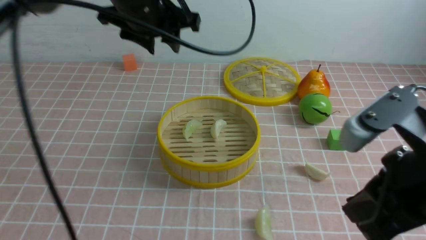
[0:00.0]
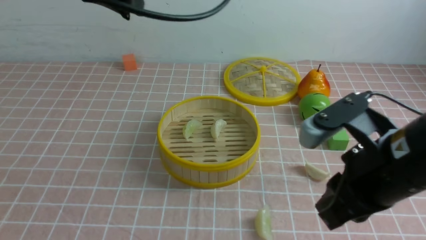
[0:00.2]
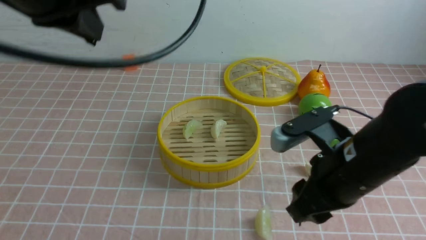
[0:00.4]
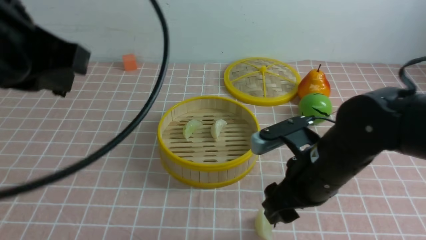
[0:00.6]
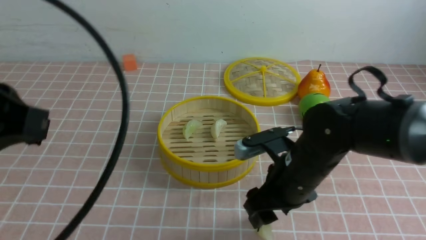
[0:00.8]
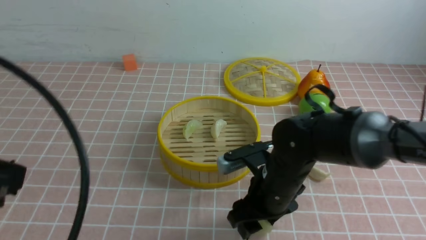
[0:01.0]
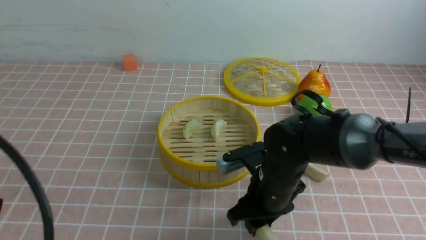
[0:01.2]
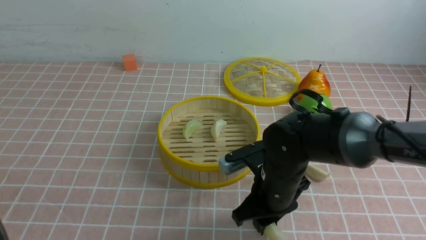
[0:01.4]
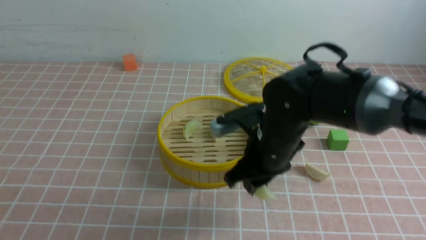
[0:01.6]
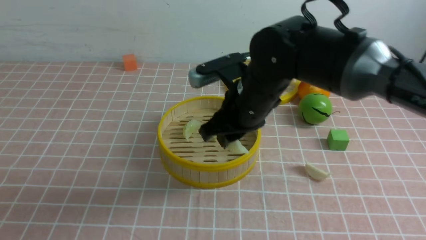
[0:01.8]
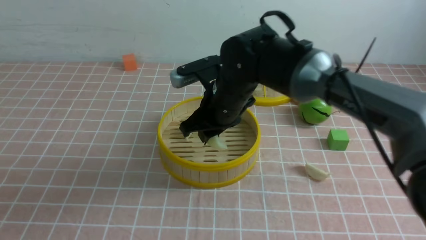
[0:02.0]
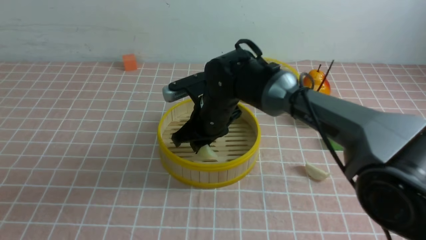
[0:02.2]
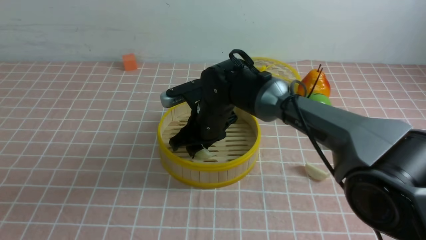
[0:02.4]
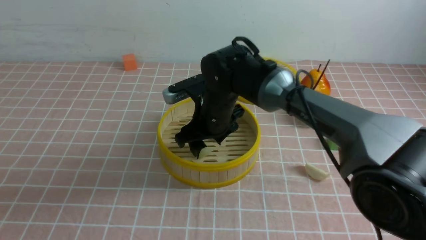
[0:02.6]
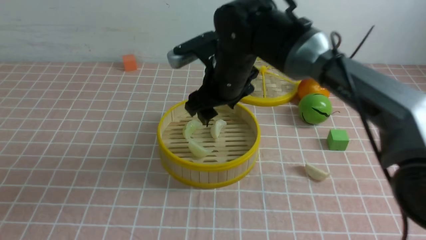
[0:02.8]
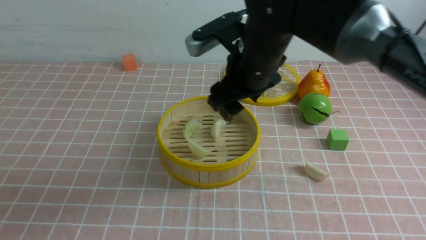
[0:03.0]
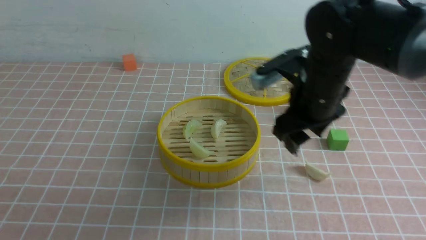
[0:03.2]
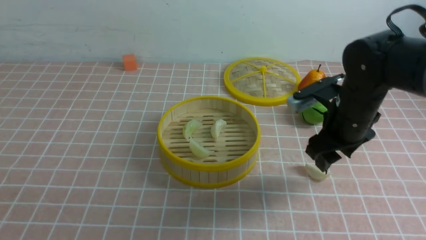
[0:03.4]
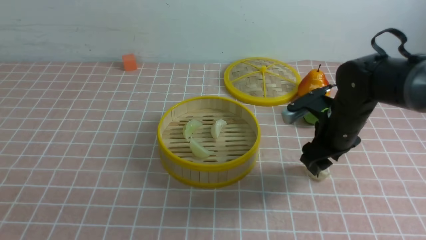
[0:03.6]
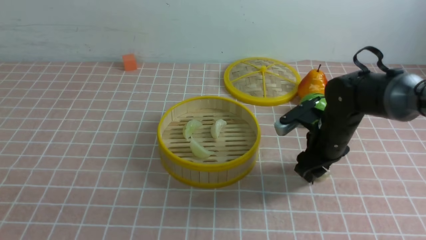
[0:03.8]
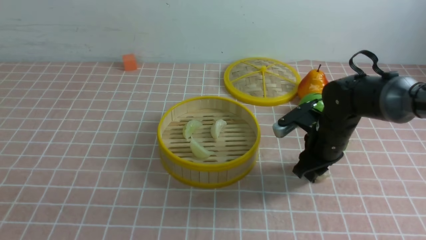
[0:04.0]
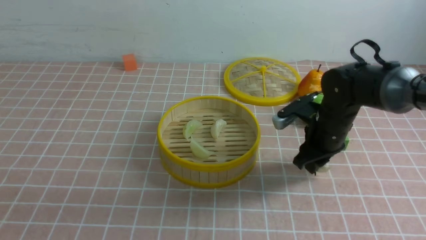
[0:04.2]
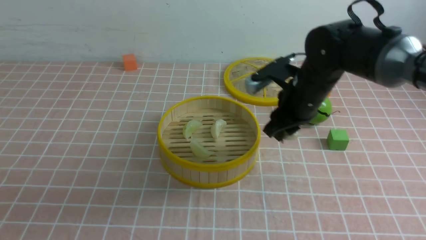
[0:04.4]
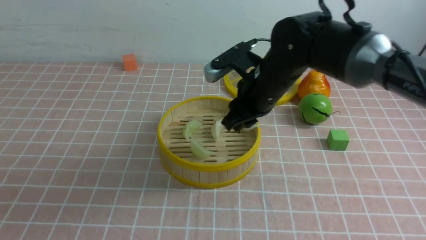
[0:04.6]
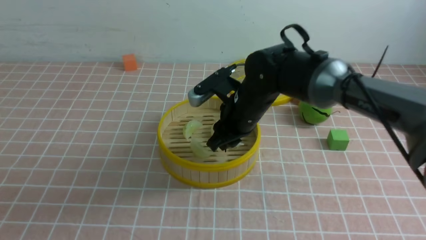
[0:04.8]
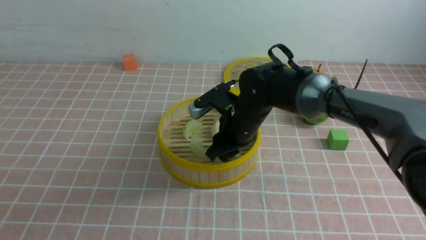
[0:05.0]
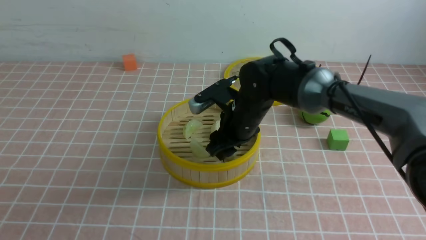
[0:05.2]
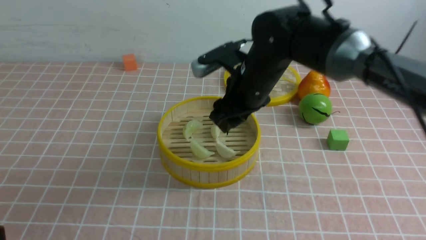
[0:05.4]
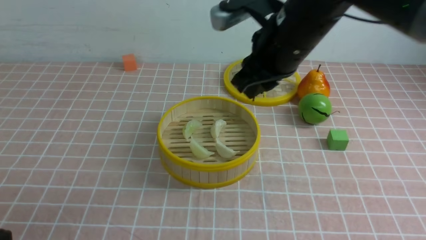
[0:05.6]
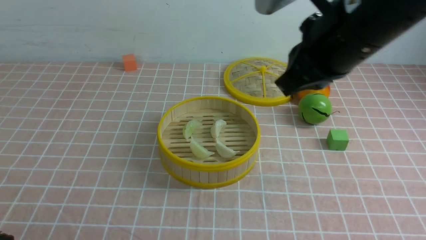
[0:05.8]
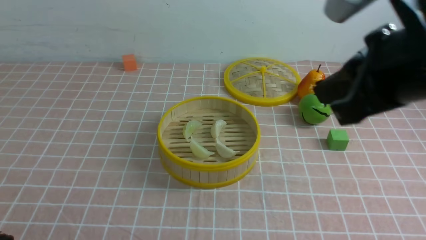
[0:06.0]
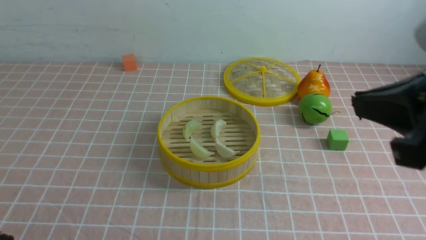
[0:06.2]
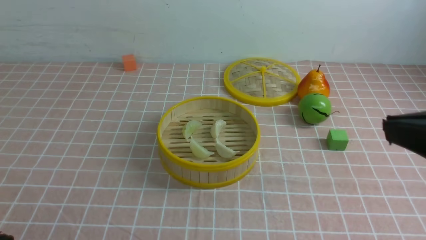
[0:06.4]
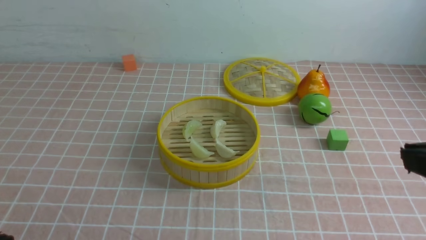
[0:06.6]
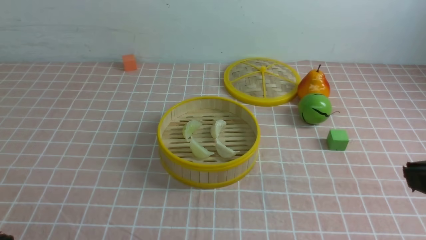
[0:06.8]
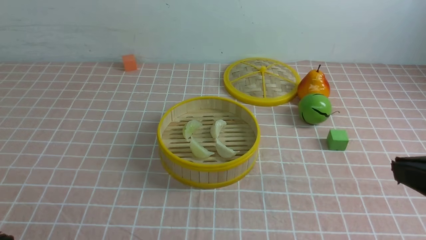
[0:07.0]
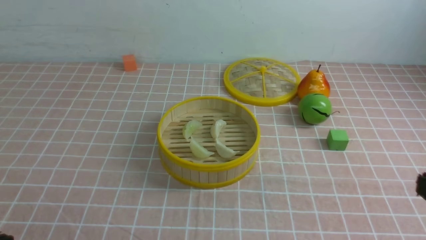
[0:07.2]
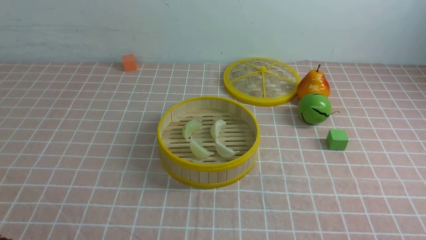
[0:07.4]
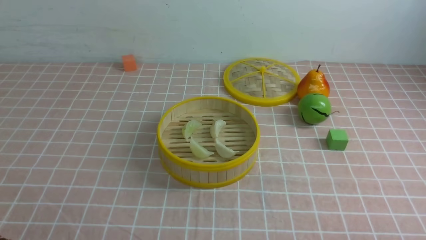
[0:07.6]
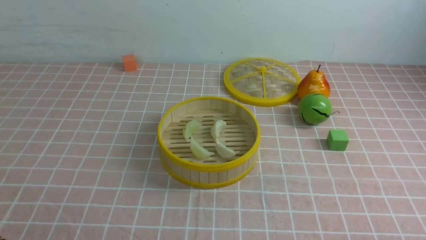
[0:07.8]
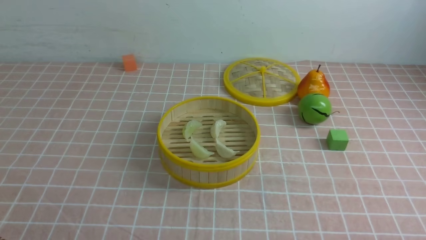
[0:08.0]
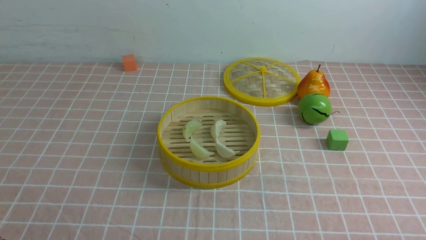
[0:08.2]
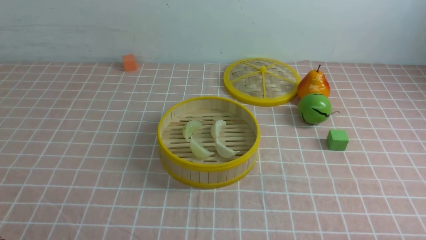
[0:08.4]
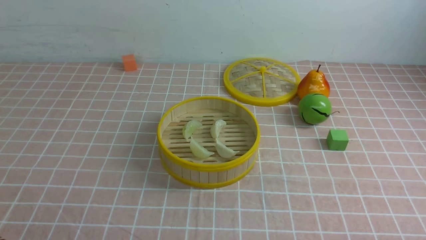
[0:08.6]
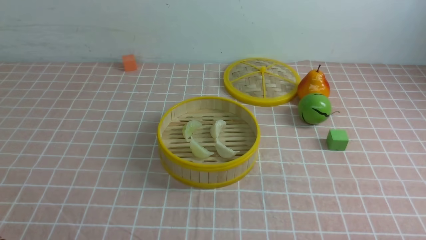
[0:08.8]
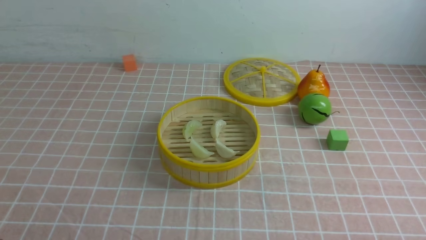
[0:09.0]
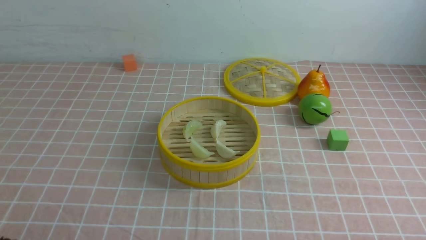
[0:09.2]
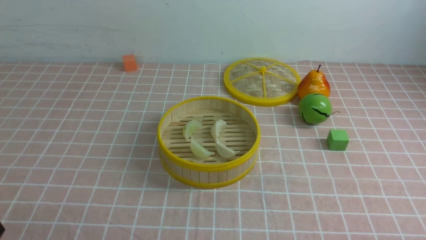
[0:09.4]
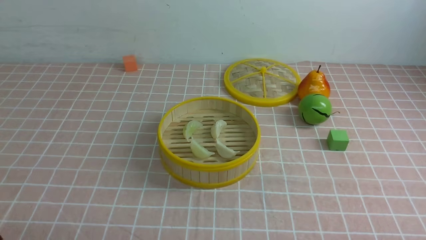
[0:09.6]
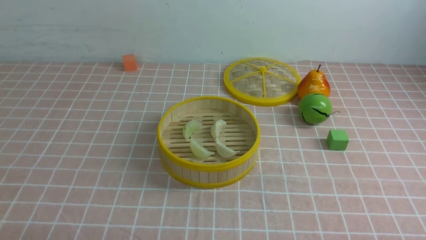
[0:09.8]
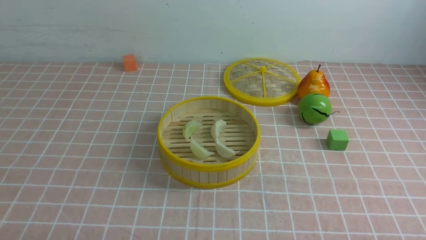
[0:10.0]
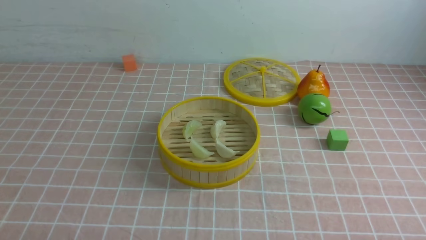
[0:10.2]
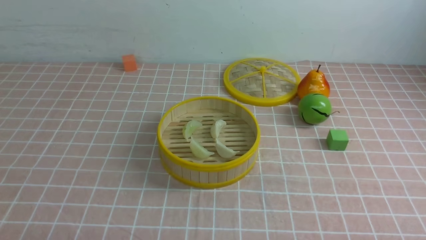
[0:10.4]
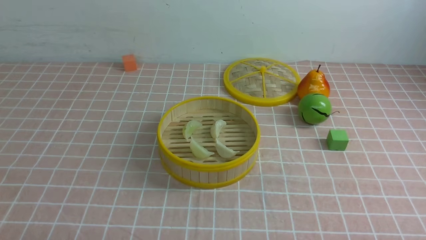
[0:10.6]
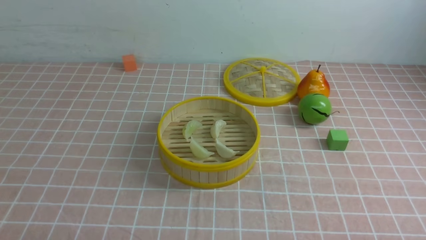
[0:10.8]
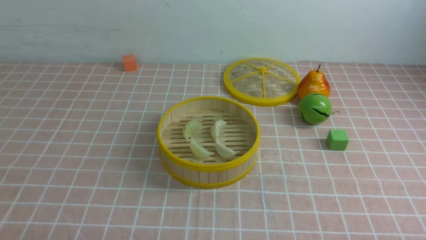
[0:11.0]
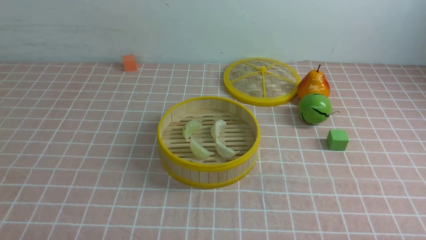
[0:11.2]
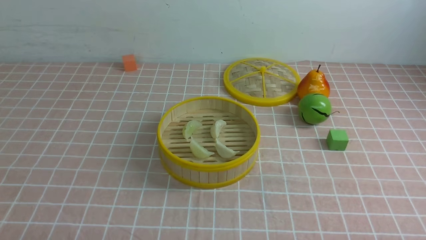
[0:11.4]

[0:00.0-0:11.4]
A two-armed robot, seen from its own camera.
Task of the whole recording: put the dumplings into the steamer on the table with the pink tablecloth.
Step, 0.0 to 1.4 s: use the right arm to grab a dumpling.
Step, 1.6 to 2.4 s: use the right arm to put the dumpling into the steamer.
Step, 2.6 to 4.0 s: use the right arm to grab a dumpling.
Step, 4.4 to 5.2 s: use the right arm to put the dumpling into the steamer.
0.0 to 1.4 s: The right gripper goes roughly 20 cm downward, forward and to the left, and opens, then closes once more. The left gripper goes roughly 35 cm backward and to the left, and closes its fingers.
1.4 to 2.8 s: The right gripper heads upward and forward, covering about 15 cm, and opens its fingers.
2.8 to 4.2 s: The right gripper moves to the right and downward, approximately 15 cm, and closes its fingers.
4.2 to 5.6 s: The left gripper goes approximately 10 cm downward. The right gripper moves up and down over some 15 cm, changing direction 2 times.
5.6 to 7.2 s: The right gripper is displaced backward and to the right by approximately 30 cm.
10.0 to 11.4 s: The two grippers keep their place.

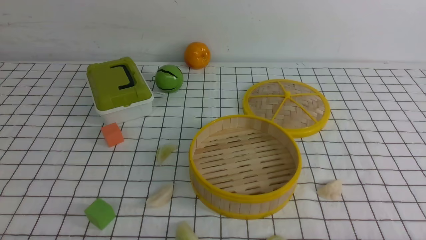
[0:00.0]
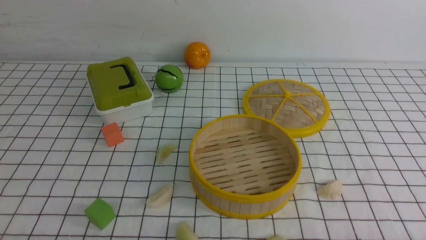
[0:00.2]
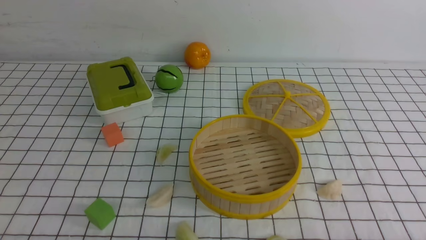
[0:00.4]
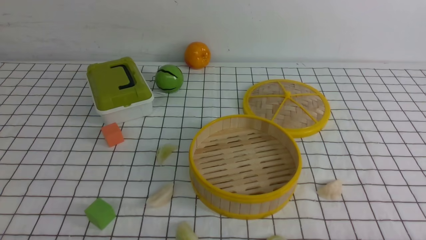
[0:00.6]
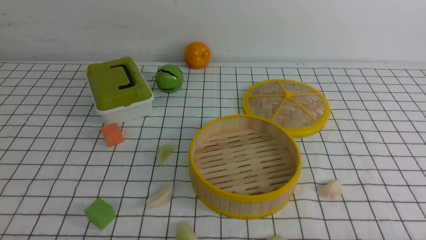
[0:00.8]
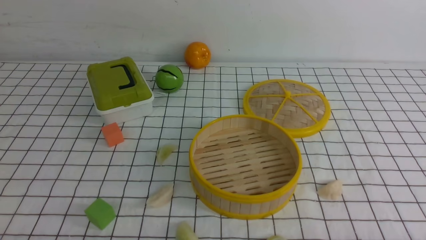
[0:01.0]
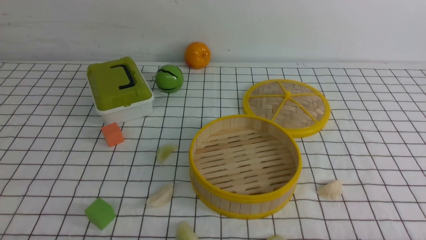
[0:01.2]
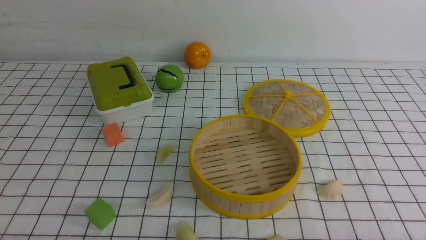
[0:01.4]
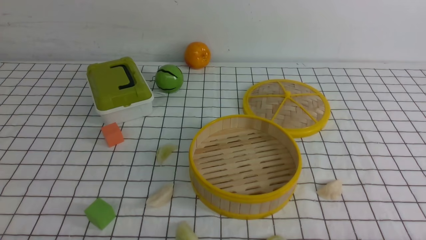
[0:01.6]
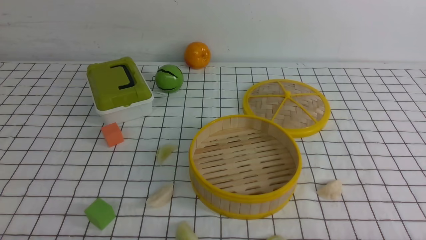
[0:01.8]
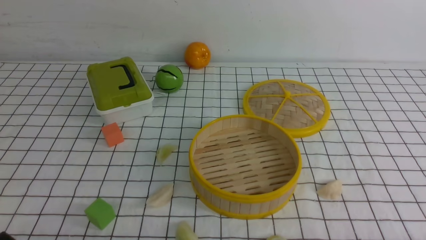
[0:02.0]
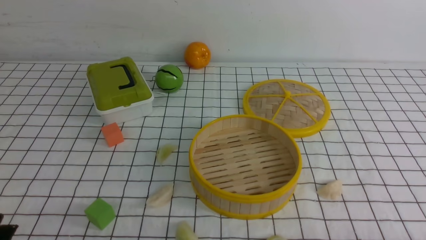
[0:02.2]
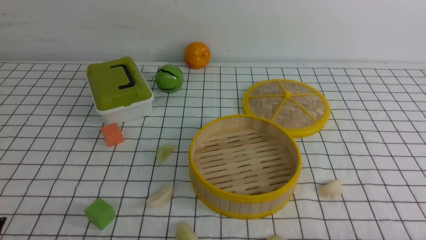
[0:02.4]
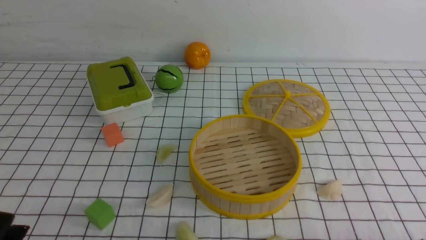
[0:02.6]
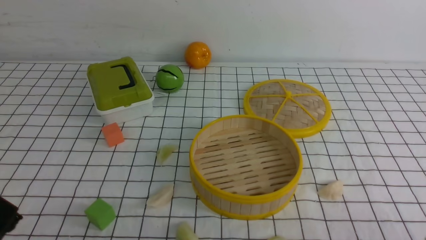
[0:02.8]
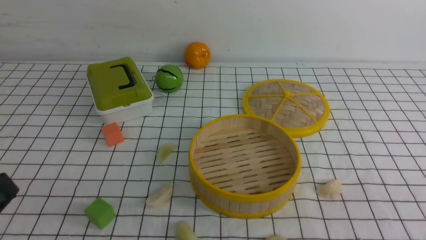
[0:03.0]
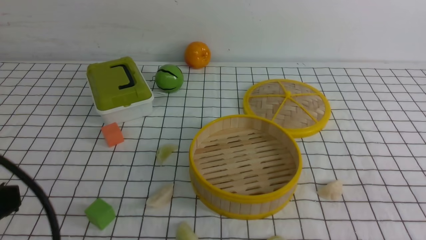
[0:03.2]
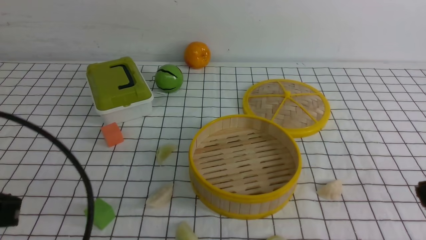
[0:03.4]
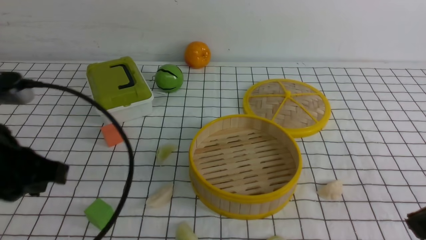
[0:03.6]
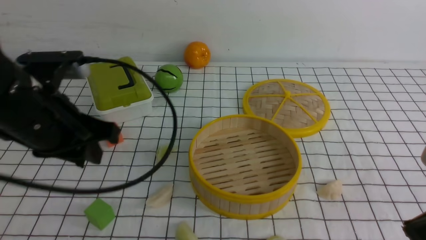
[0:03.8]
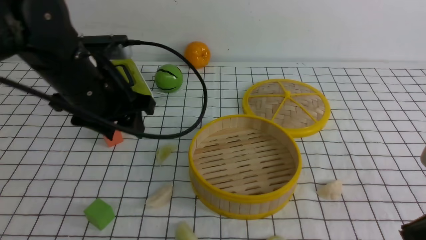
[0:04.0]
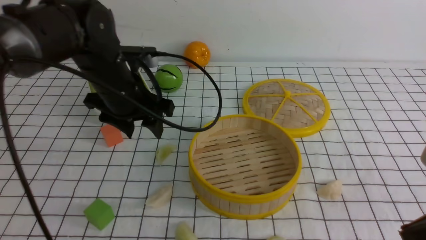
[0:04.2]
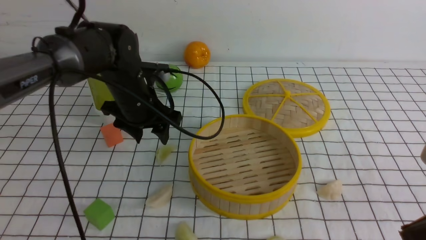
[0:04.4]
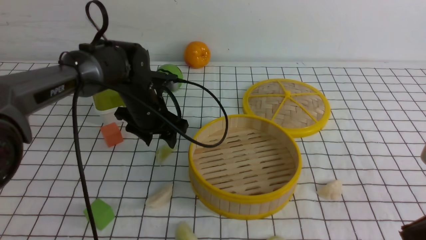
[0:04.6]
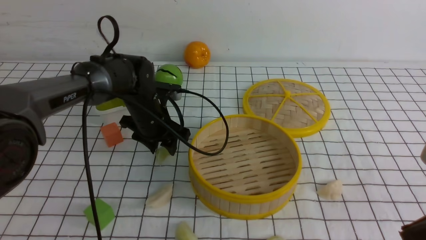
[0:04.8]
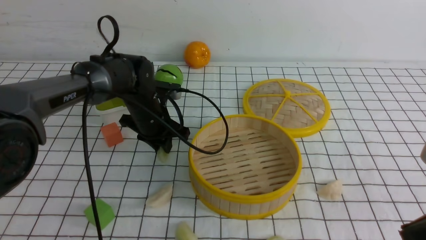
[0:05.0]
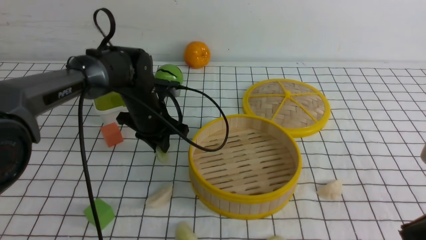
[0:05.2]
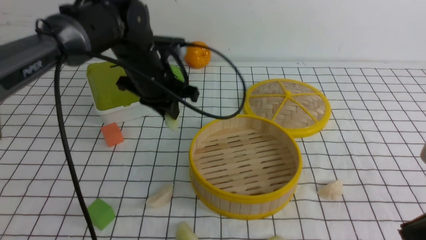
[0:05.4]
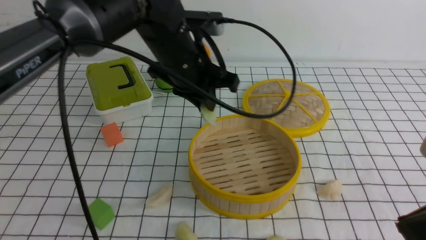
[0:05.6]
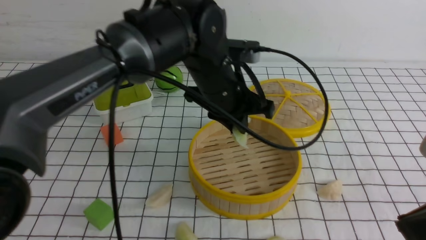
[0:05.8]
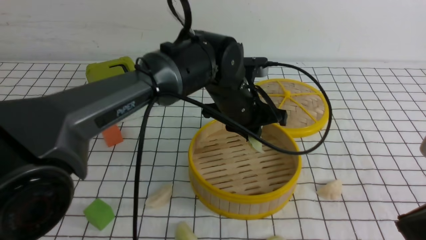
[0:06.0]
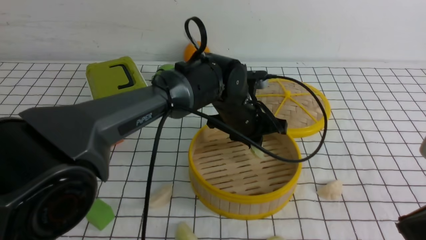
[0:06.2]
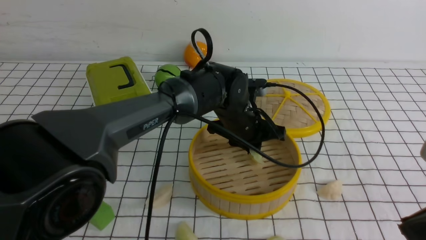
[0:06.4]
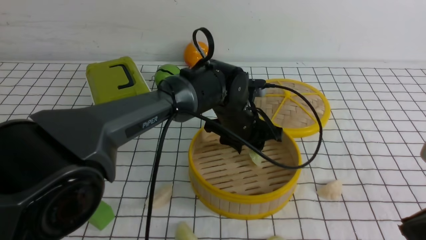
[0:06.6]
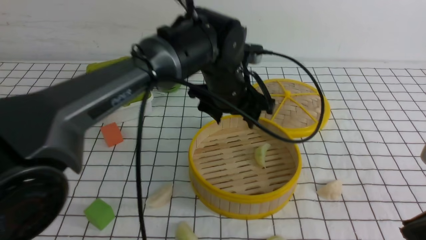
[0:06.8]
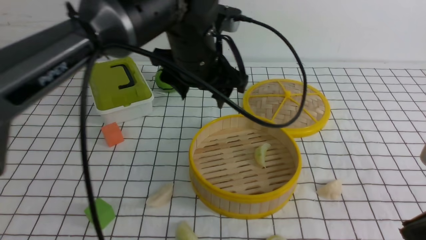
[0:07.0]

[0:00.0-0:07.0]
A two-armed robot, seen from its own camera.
Task of the whole recording: put the dumplings into the steamer on the table with the white tablecloth.
Step, 0.0 to 5.0 s: use the left arm to grab a dumpling.
Step, 5.2 to 6.8 s: use the left arm to put the dumpling into the steamer.
2.8 to 4.2 s: The left gripper travels forward by approximately 30 cm, and opens. Meanwhile the right gripper goes approximately 15 cm upward and forward.
4.2 to 5.6 s: The left gripper heads to the right, covering some 10 cm, moves roughly 10 cm downward and comes back, and closes.
5.6 to 7.0 s: The left gripper moves some 10 cm downward and comes back, and opens up.
